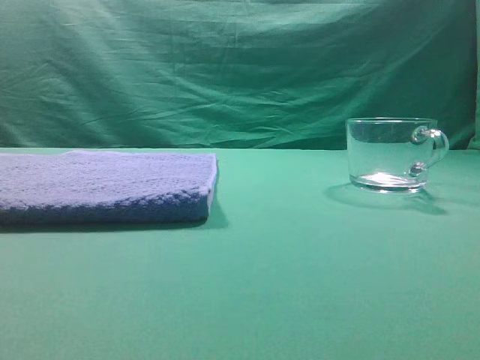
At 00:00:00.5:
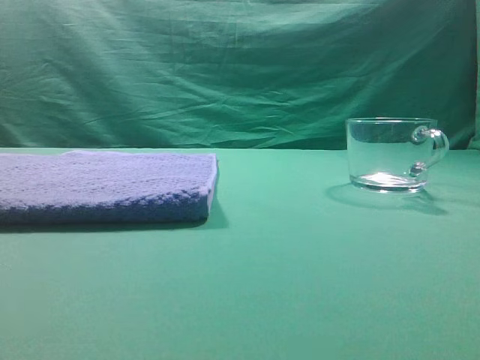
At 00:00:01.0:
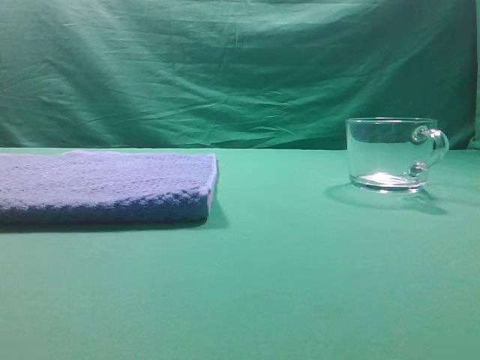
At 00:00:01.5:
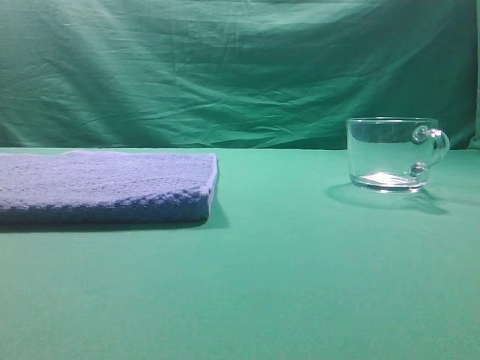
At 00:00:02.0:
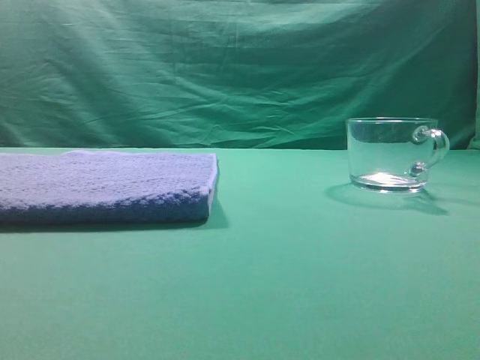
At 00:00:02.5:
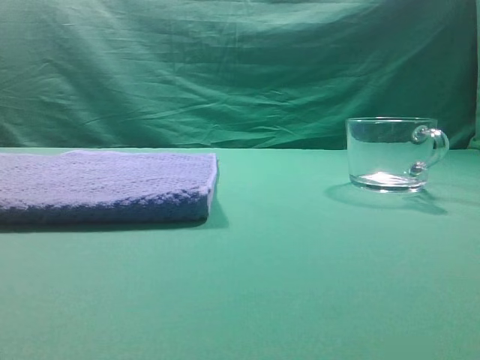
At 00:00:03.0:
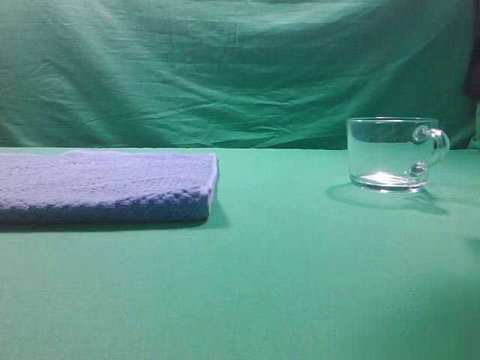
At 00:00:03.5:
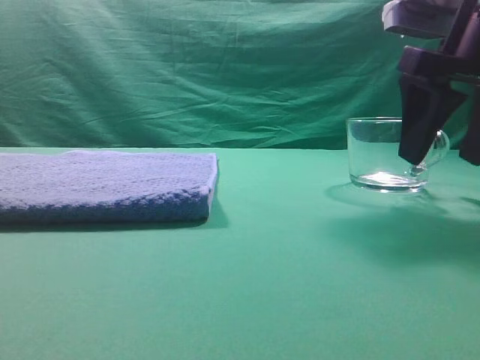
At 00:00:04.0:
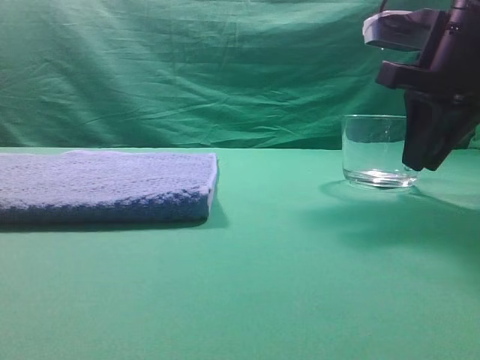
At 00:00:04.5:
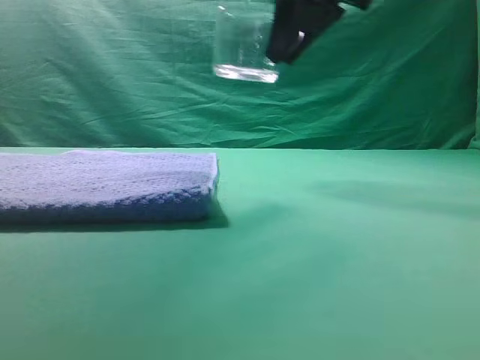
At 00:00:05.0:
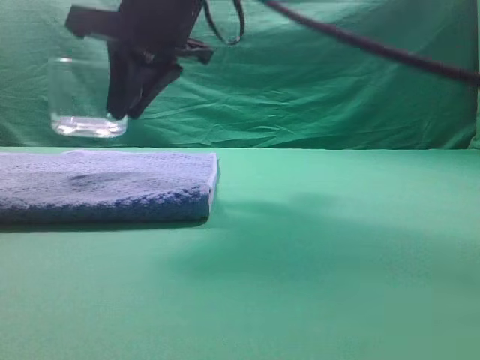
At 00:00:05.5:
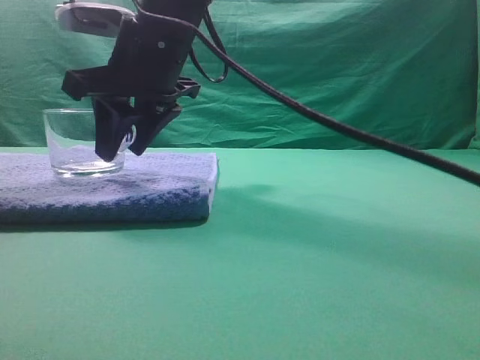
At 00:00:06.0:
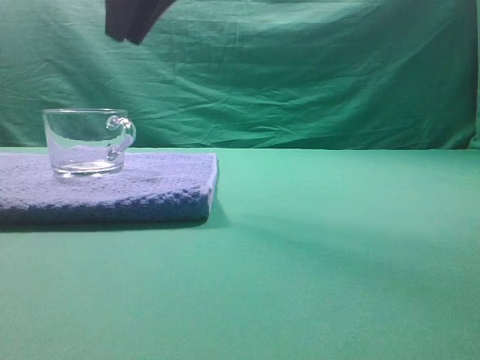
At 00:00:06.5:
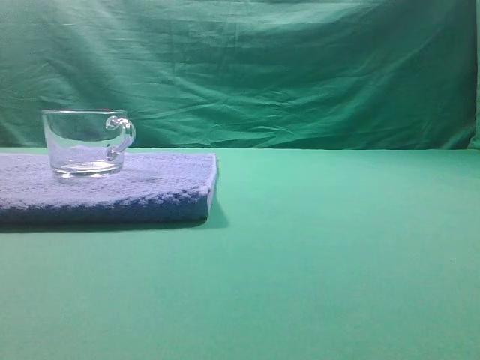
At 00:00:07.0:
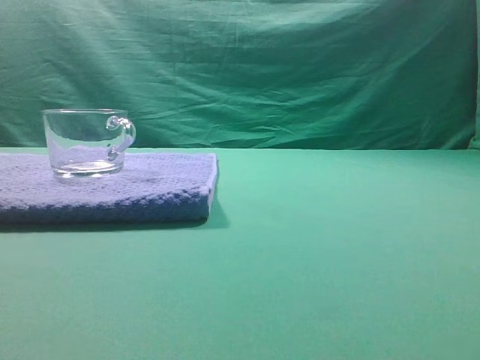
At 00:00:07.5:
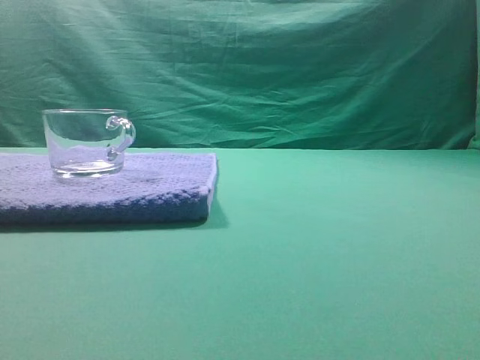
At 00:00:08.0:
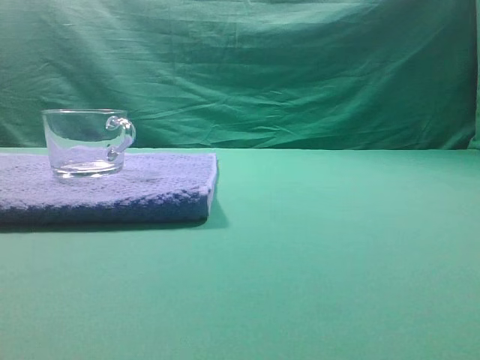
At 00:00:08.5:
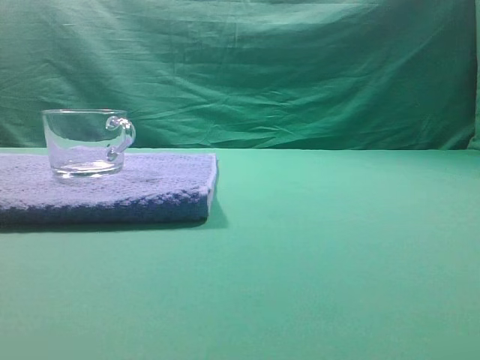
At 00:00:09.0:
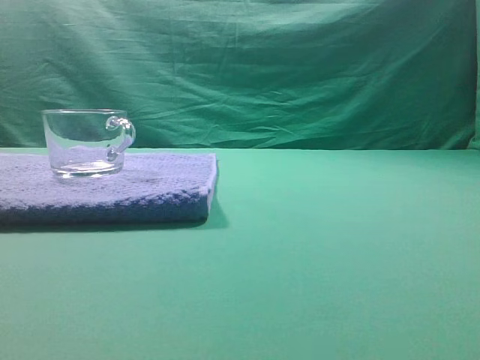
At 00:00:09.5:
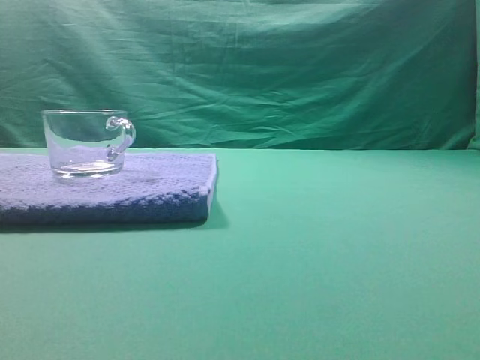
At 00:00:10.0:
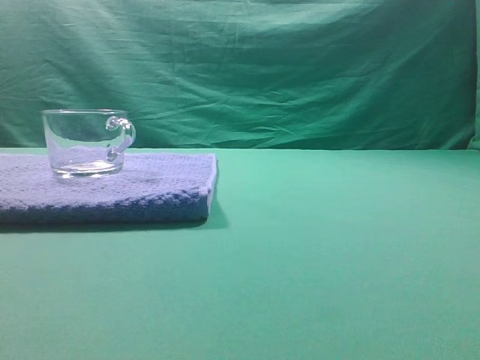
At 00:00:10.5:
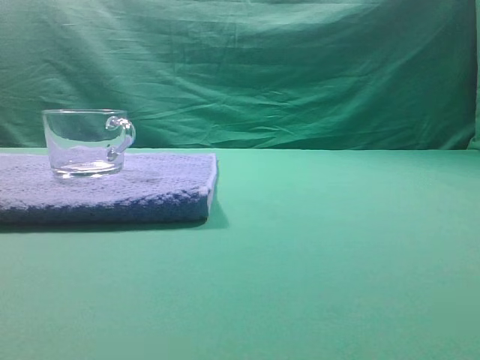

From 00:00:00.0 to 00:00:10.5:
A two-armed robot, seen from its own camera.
Task of the whole recording: grasp the transparent glass cup and place it within the blue towel.
Step, from 00:00:00.0 to 00:00:04.0: Grasp the transparent glass cup.
Step, from 00:00:04.5 to 00:00:05.5: Place the glass cup on the blue zone.
